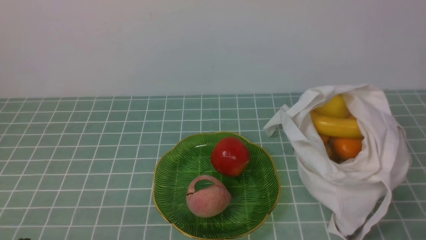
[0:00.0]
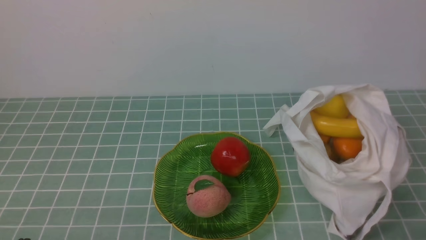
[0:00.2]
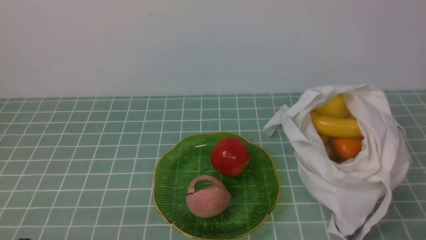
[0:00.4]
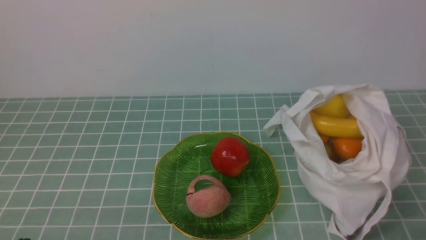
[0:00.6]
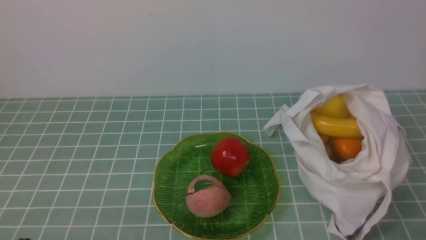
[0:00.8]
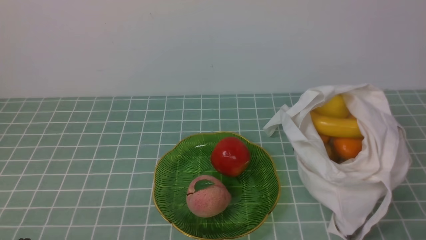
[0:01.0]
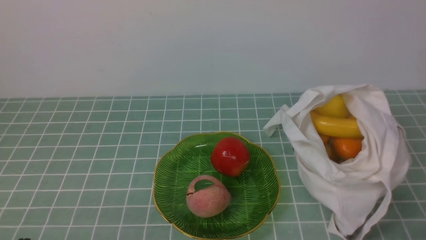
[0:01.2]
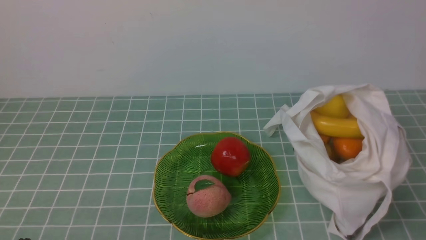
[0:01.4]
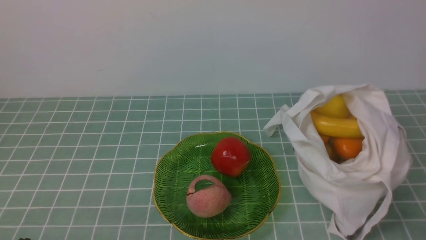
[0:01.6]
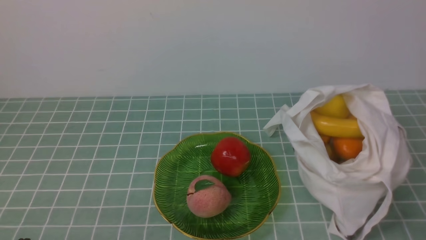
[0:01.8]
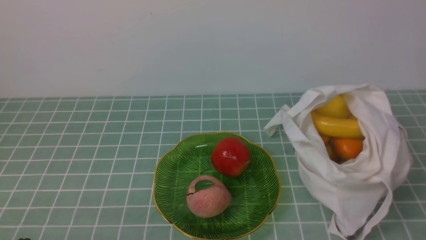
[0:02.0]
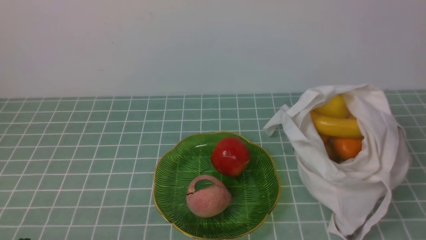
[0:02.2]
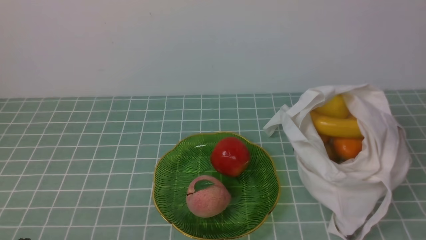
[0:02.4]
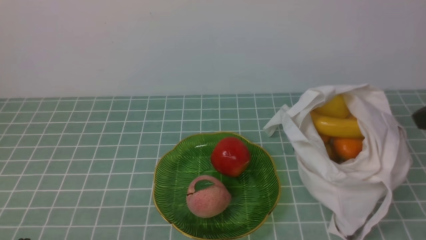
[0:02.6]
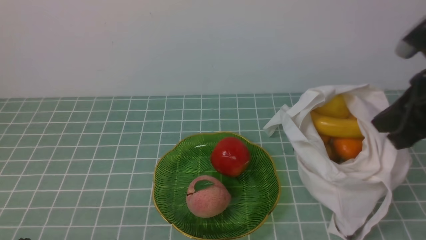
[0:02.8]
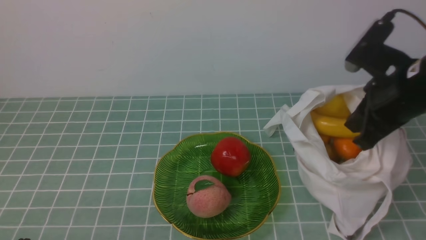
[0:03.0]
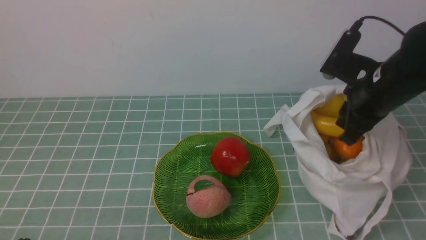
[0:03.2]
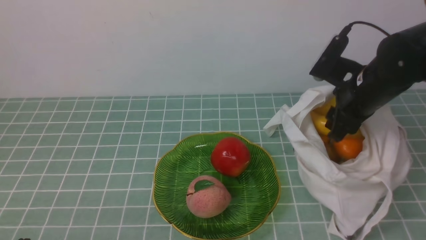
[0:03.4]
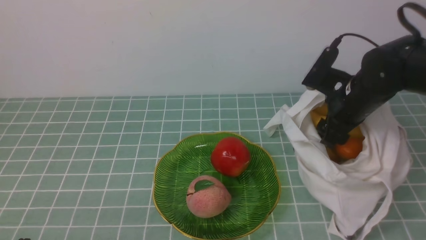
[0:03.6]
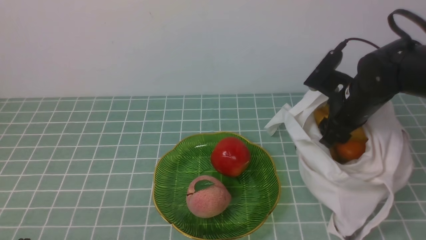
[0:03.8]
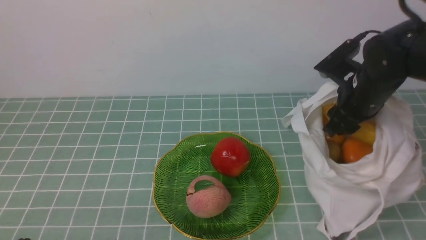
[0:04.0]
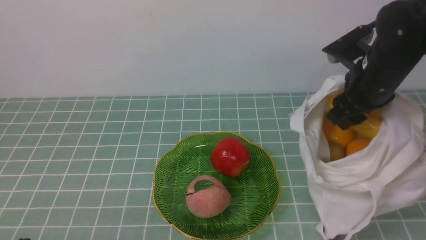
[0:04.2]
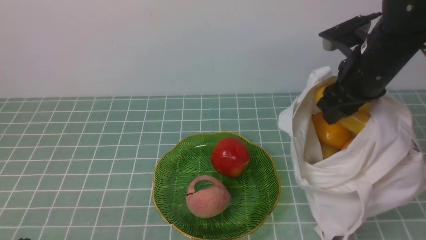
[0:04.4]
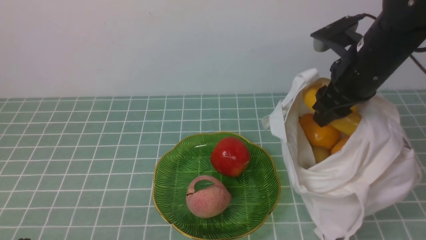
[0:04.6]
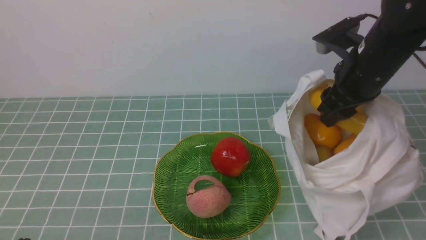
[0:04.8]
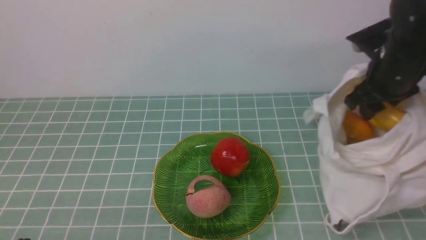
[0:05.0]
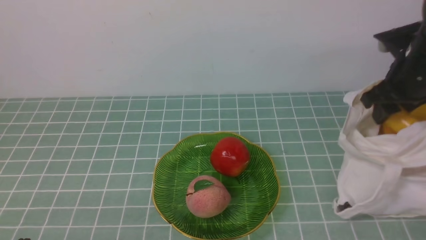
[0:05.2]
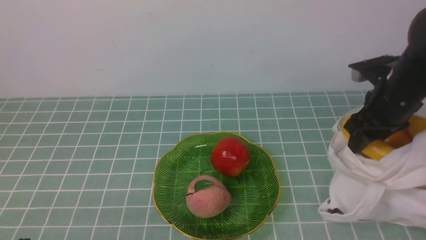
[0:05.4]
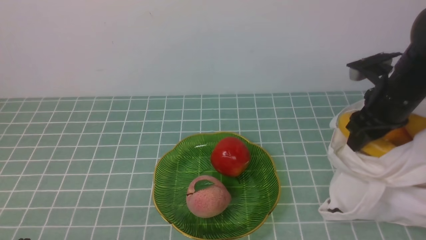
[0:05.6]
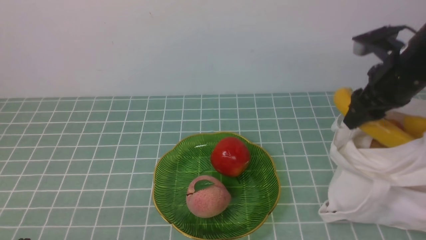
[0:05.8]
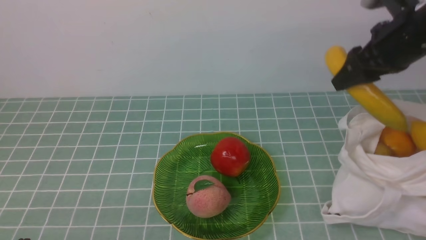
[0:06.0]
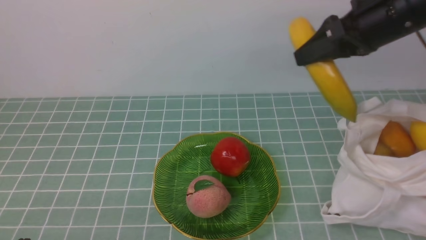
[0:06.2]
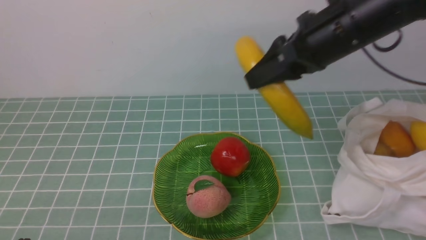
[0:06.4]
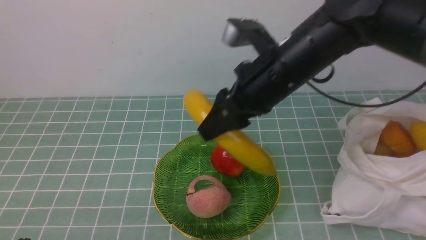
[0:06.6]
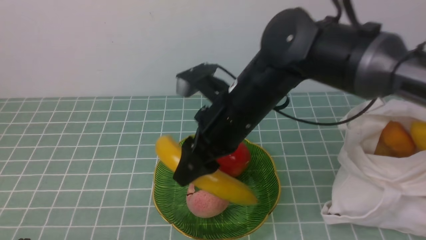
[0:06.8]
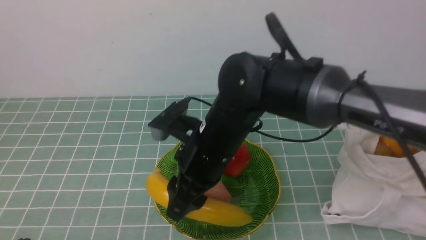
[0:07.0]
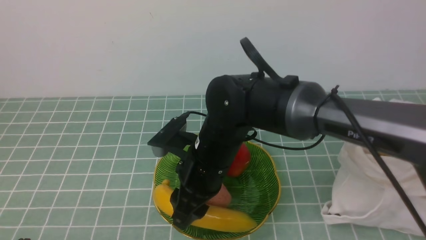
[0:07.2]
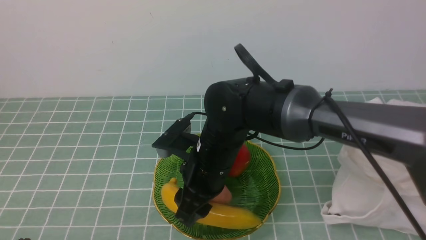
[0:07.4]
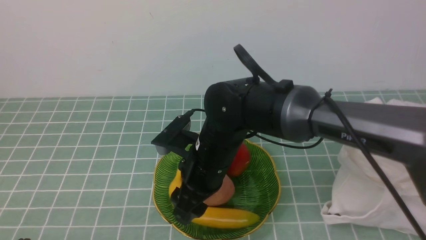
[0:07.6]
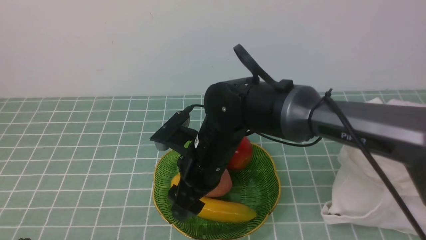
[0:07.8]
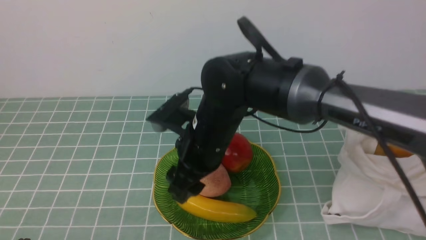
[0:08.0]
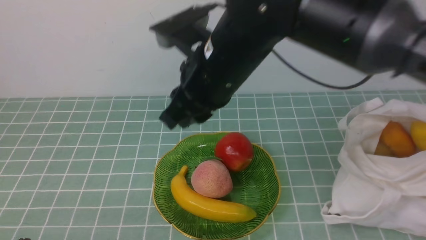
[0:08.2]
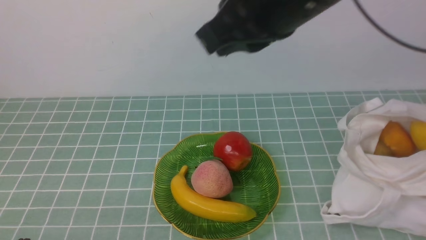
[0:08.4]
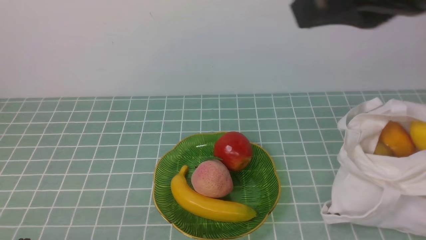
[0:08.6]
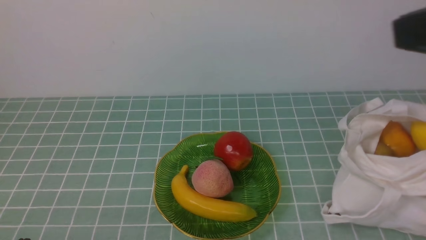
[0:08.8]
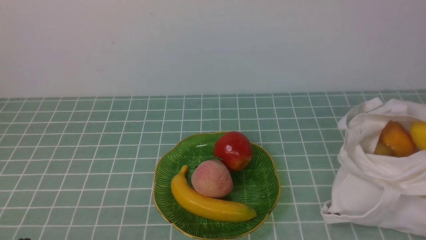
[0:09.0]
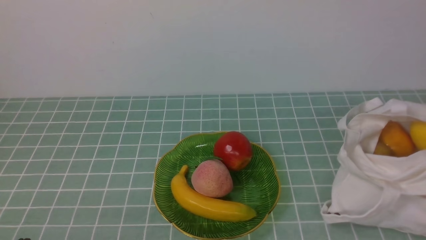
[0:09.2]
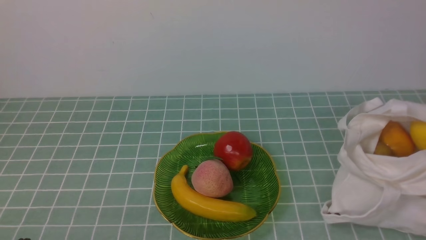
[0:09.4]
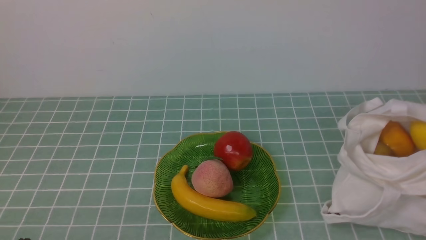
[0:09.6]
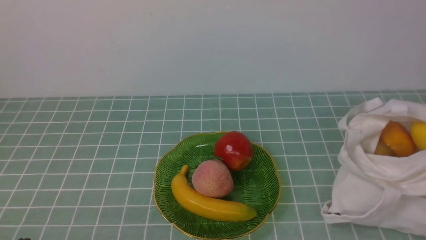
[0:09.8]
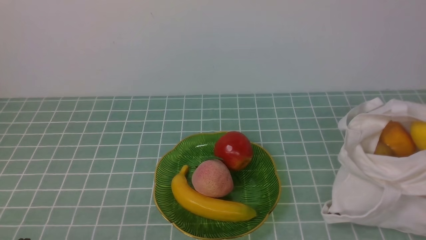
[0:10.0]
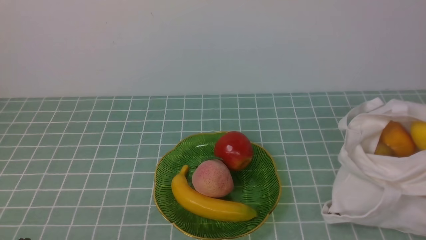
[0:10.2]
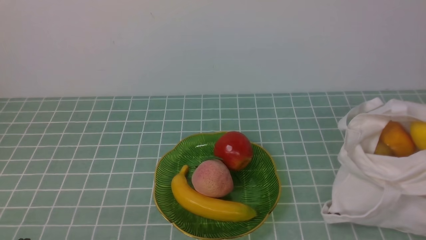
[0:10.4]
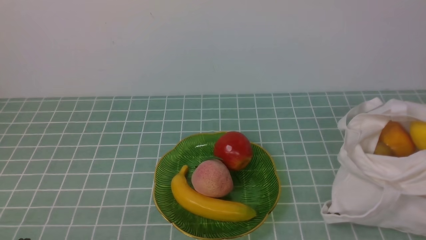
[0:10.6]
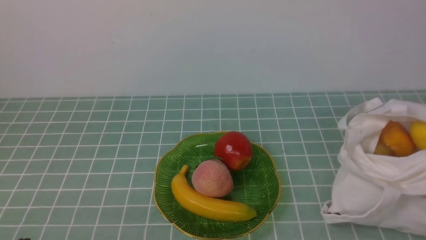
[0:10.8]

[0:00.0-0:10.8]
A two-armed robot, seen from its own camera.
Step, 0:00.0 to 0:05.8: use the right arm to grab a banana from the bag.
Step, 0:06.0 to 0:07.8: use the right arm to put the banana into the empty plate on the right.
0:01.6 to 0:03.0: The right gripper moves forward and upward, about 25 cm.
0:03.0 to 0:04.6: The right gripper goes roughly 5 cm forward, and opens up.
0:04.6 to 0:06.2: The right gripper heads upward, covering some 5 cm.
0:06.2 to 0:07.8: The right gripper shifts approximately 25 cm to the left and downward.
0:07.8 to 0:09.2: The right gripper shifts about 40 cm to the right, backward and upward, and closes up.

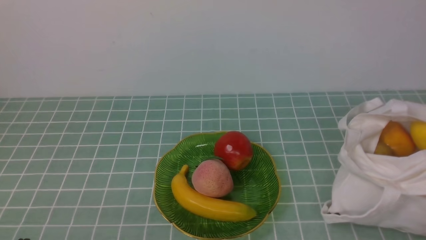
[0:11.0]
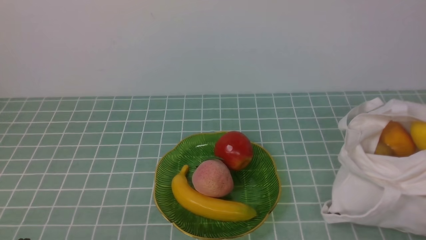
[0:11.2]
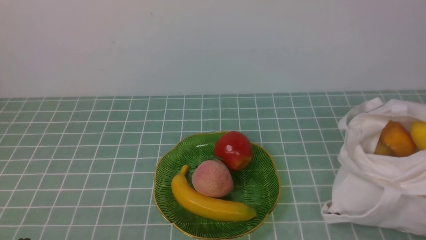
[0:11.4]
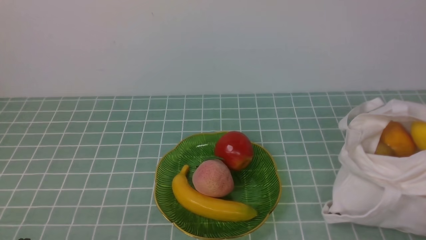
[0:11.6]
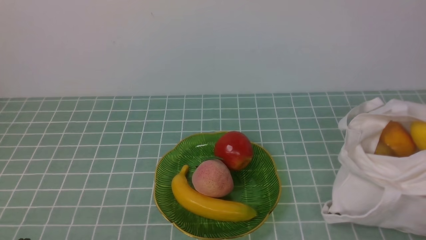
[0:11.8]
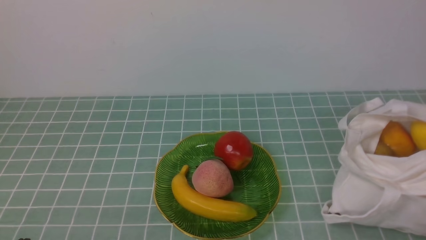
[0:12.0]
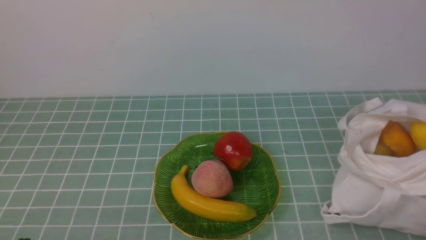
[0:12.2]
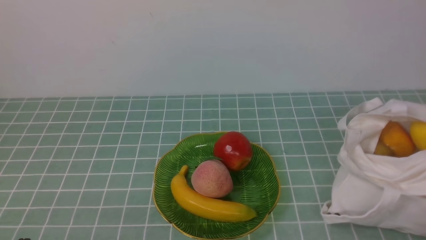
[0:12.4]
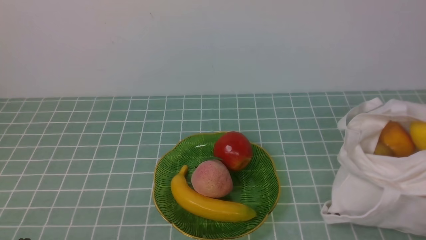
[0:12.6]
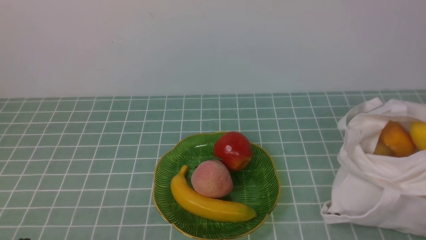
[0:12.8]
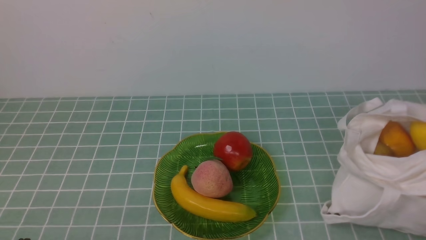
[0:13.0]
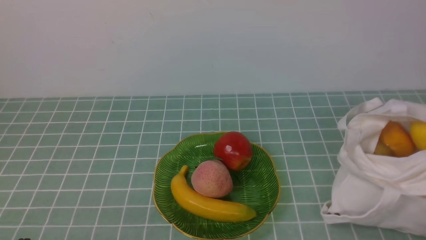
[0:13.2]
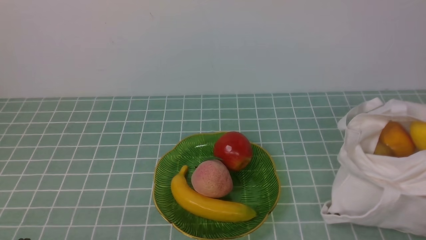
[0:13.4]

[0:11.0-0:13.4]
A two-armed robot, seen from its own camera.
0:12.2 to 0:13.4: Both grippers stay put.
